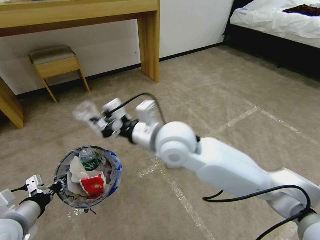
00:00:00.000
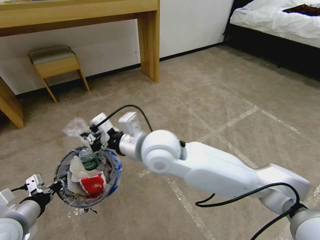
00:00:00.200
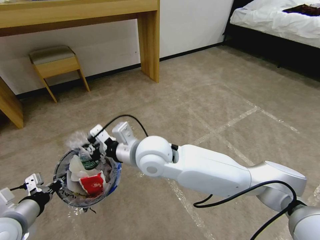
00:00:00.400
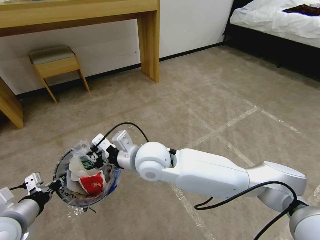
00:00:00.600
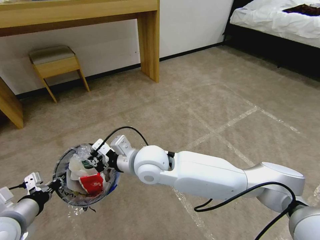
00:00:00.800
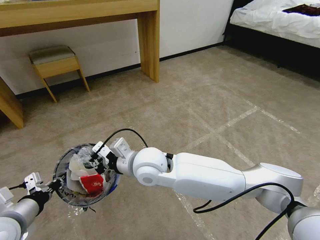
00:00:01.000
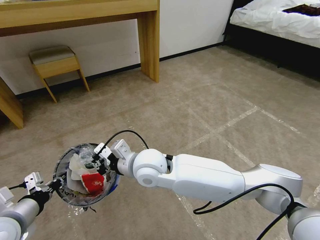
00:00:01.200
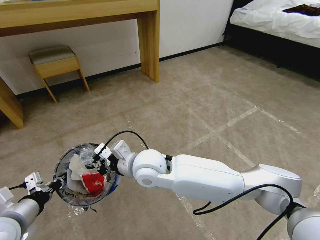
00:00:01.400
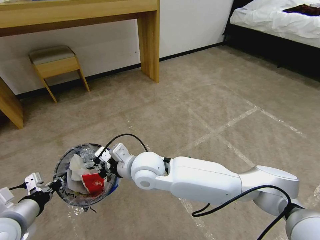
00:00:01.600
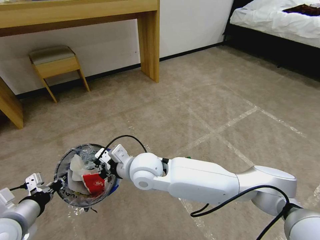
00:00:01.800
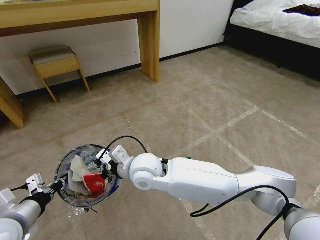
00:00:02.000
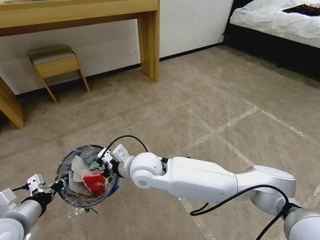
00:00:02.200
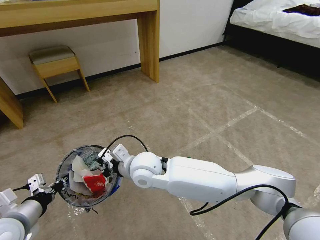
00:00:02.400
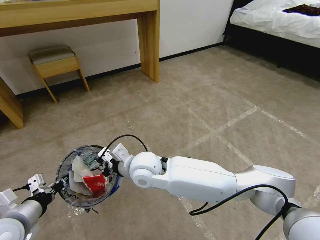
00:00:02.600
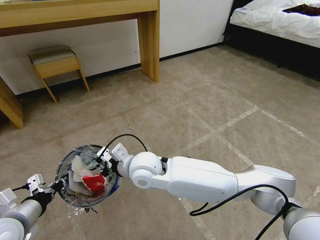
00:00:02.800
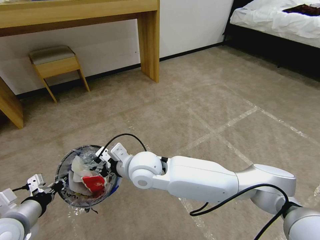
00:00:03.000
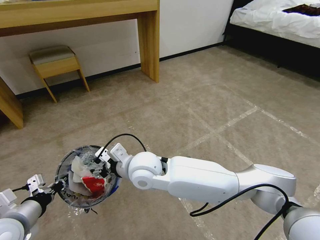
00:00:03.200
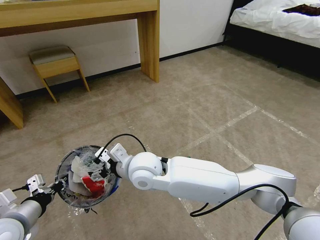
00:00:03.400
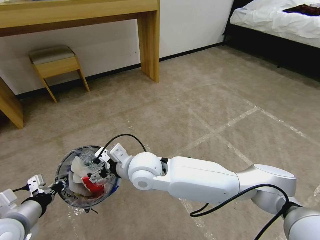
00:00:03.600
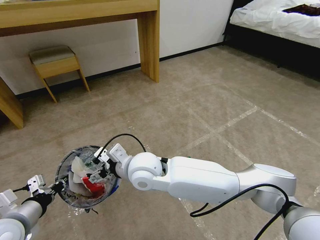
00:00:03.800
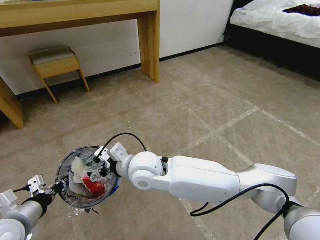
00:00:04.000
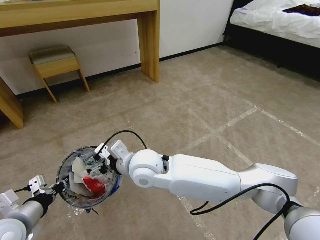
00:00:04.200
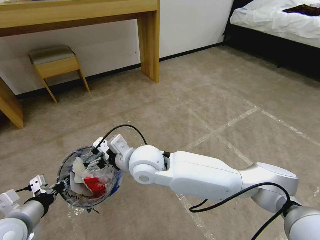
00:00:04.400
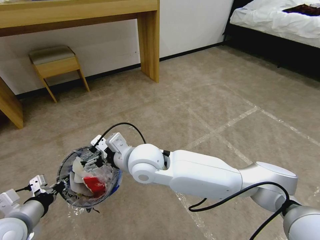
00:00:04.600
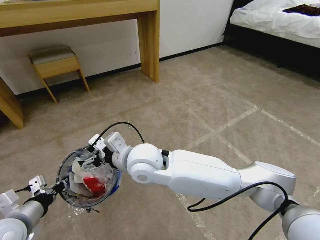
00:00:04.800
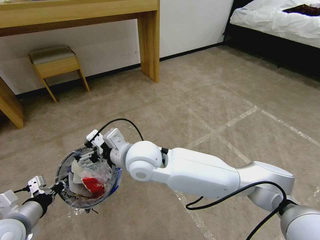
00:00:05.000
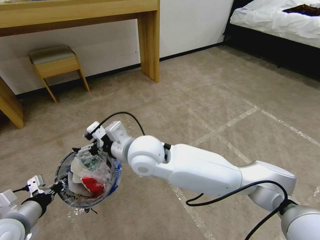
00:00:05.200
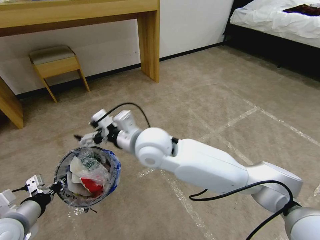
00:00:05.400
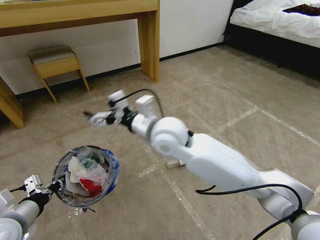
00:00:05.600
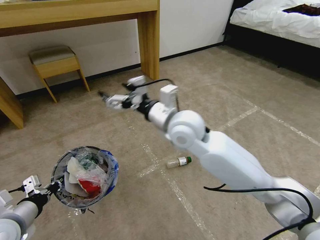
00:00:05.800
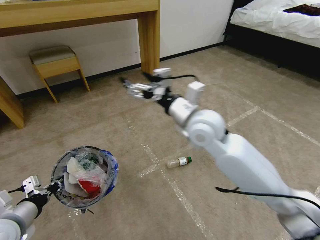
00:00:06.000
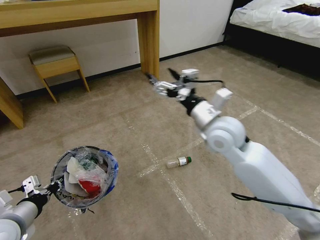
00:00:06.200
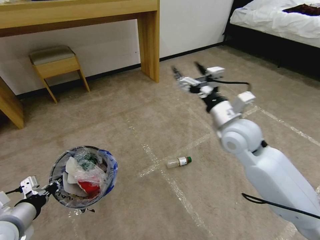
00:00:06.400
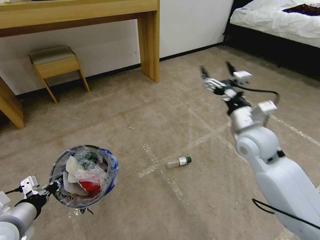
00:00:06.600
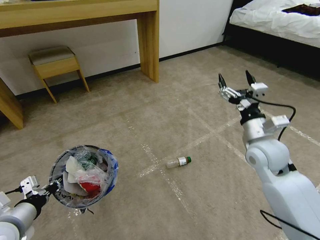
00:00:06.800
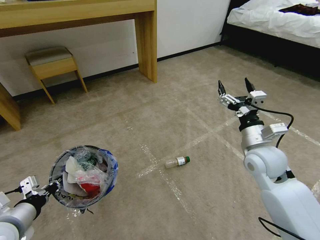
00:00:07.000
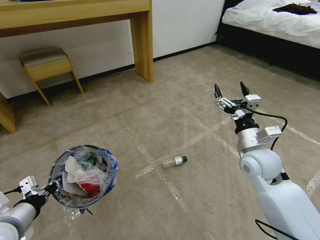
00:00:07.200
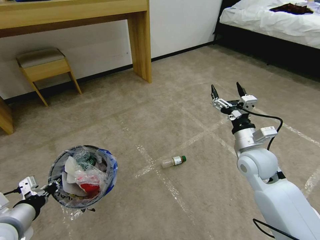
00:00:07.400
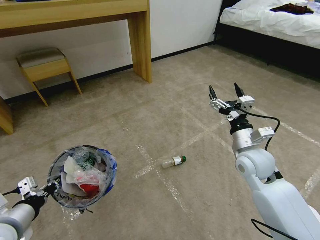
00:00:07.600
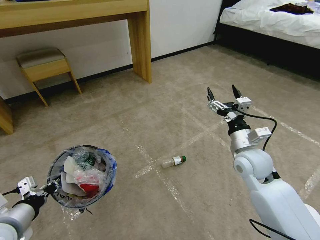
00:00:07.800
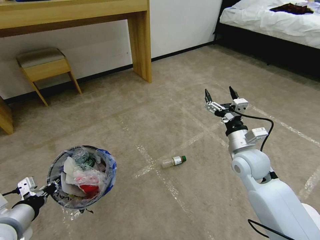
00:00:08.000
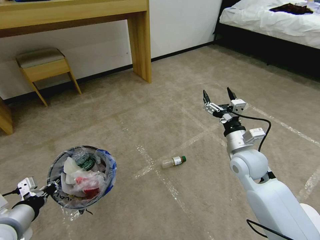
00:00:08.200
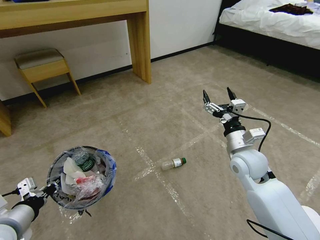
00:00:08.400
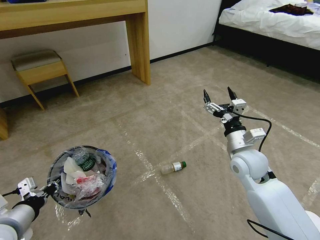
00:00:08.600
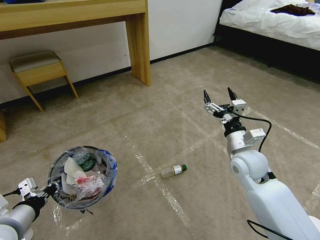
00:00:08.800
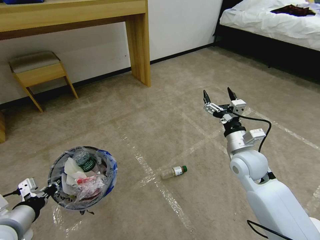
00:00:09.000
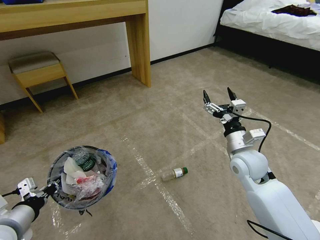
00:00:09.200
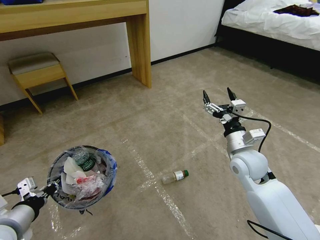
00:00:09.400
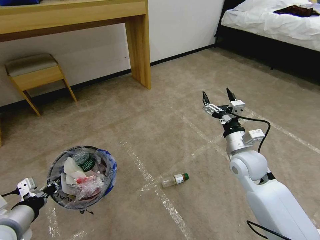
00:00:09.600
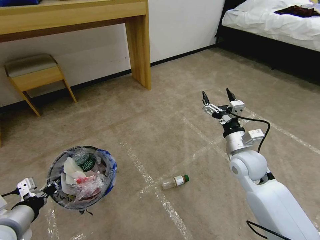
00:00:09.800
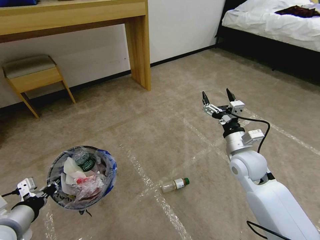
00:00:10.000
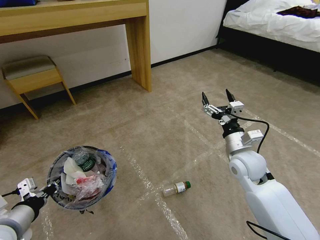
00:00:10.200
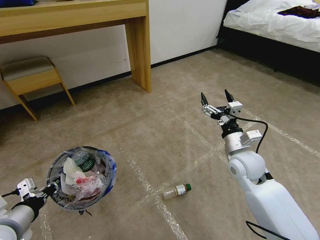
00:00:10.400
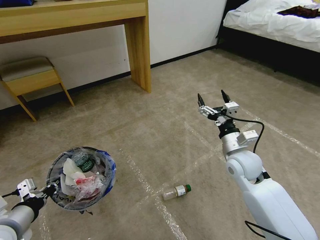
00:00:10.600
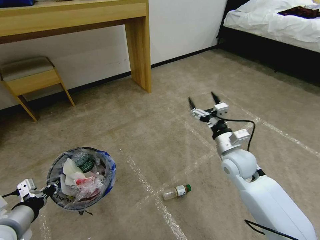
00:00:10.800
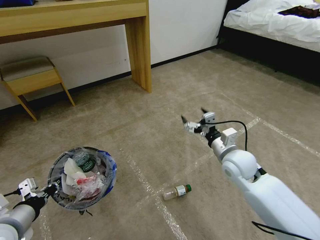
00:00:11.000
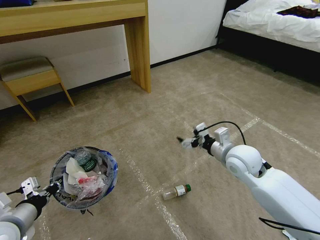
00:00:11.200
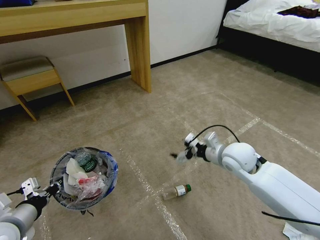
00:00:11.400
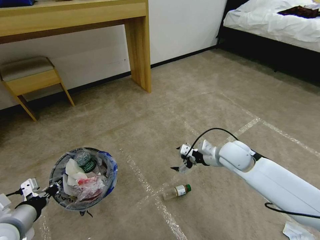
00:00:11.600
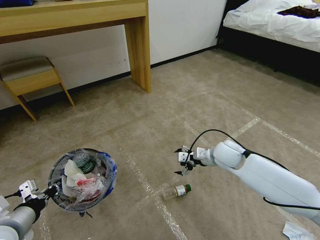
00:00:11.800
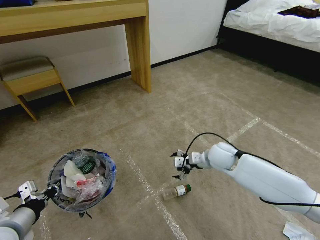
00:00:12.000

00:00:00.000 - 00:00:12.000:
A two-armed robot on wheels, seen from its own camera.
Task of the whole recording: Pick up the trash bin and place the garbage on the floor into it.
00:00:00.000 - 00:00:01.600: The right gripper shifts about 10 cm downward and to the left.
00:00:01.600 - 00:00:03.000: The right gripper opens.
00:00:03.000 - 00:00:04.400: The right gripper opens its fingers.
00:00:04.400 - 00:00:06.000: The right gripper heads to the right, upward and forward, covering roughly 20 cm.
00:00:06.000 - 00:00:07.600: The right gripper moves to the right and downward, about 20 cm.
00:00:07.600 - 00:00:09.000: The grippers move only a little.
00:00:09.000 - 00:00:10.400: Both grippers stay put.
00:00:10.400 - 00:00:12.000: The right gripper shifts about 10 cm forward and downward.

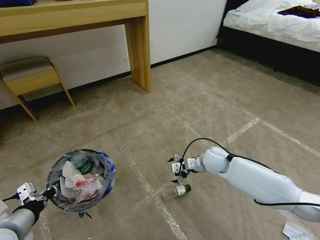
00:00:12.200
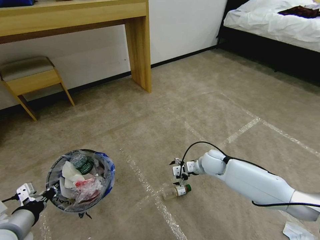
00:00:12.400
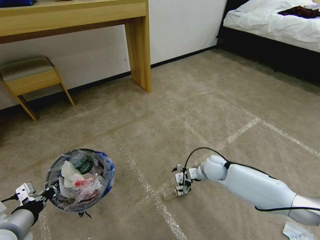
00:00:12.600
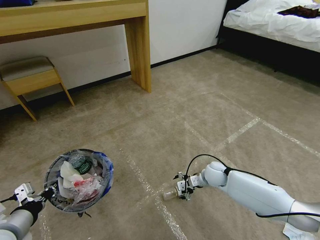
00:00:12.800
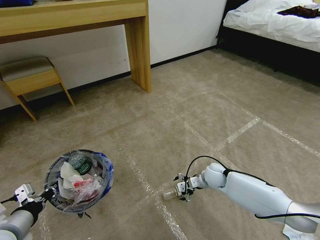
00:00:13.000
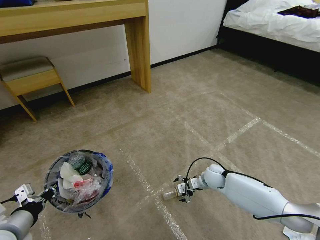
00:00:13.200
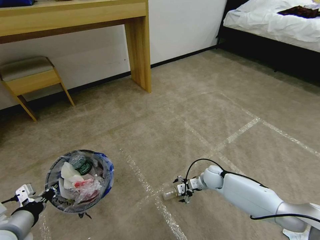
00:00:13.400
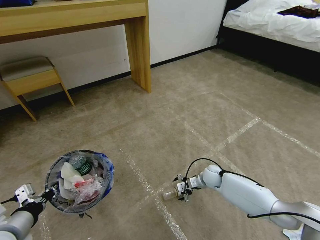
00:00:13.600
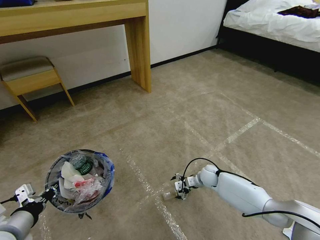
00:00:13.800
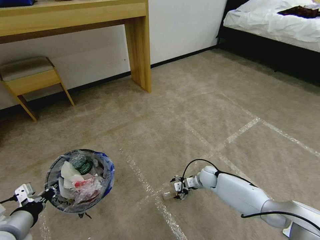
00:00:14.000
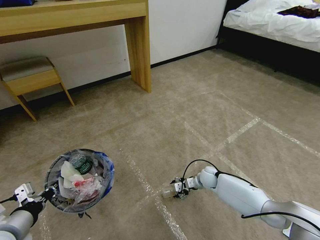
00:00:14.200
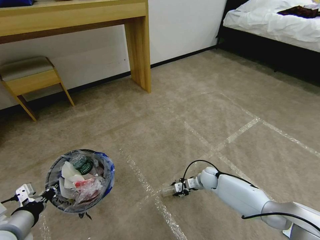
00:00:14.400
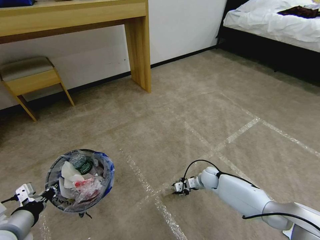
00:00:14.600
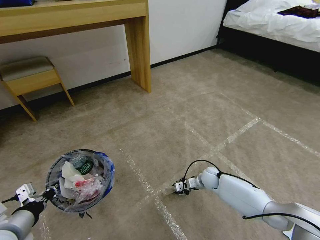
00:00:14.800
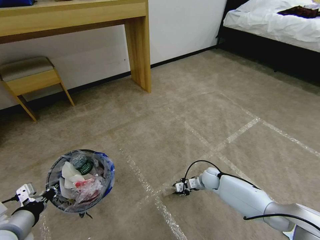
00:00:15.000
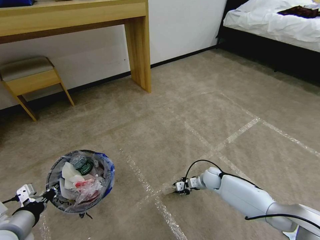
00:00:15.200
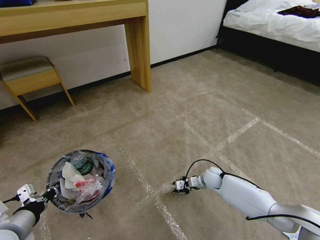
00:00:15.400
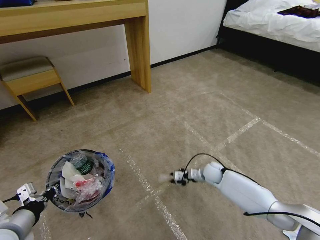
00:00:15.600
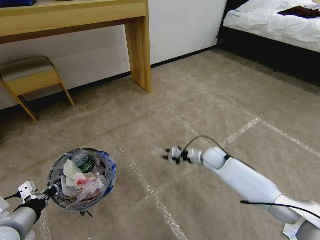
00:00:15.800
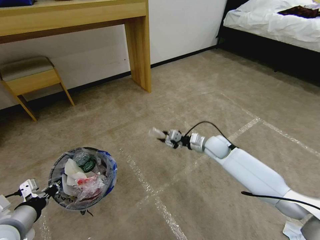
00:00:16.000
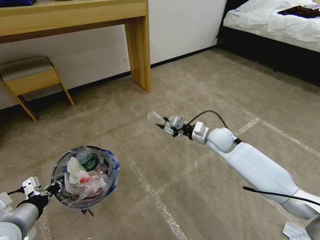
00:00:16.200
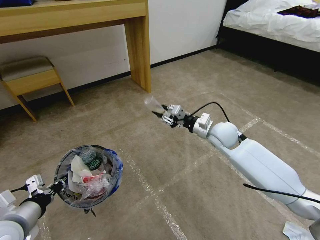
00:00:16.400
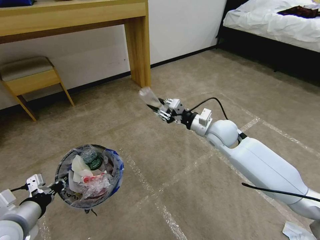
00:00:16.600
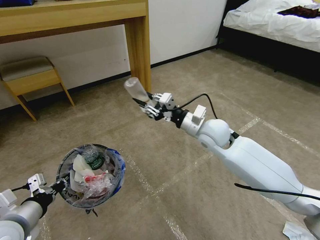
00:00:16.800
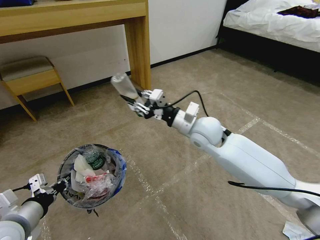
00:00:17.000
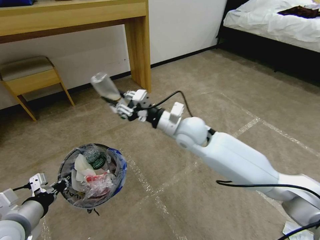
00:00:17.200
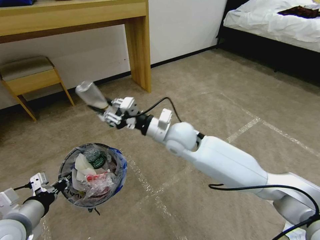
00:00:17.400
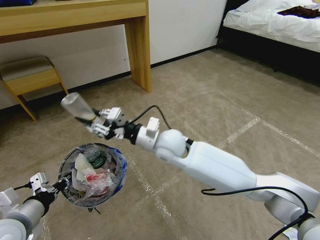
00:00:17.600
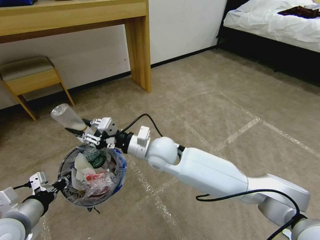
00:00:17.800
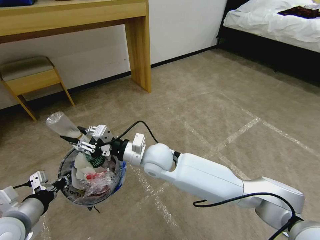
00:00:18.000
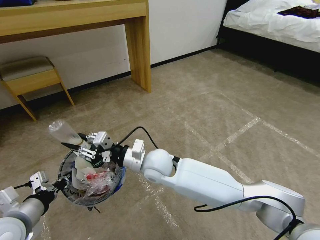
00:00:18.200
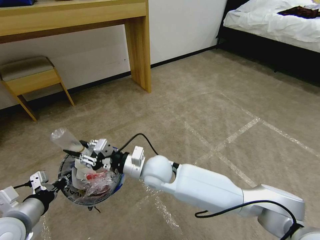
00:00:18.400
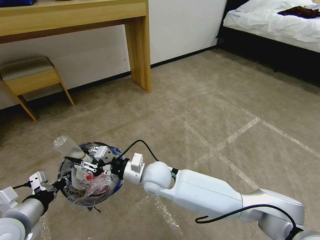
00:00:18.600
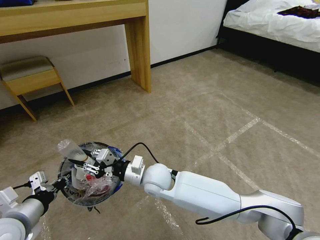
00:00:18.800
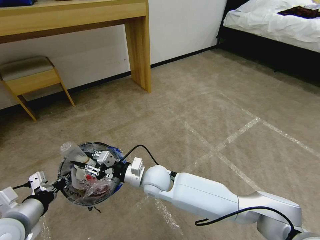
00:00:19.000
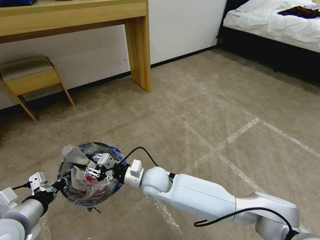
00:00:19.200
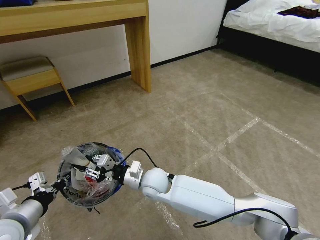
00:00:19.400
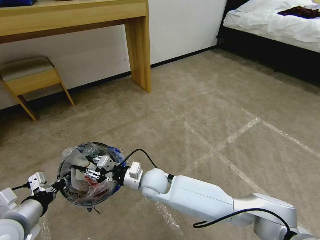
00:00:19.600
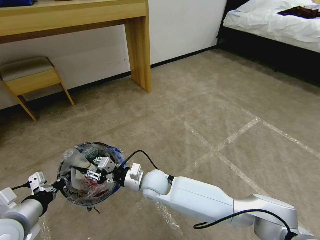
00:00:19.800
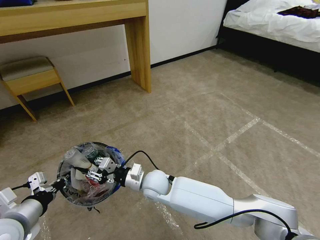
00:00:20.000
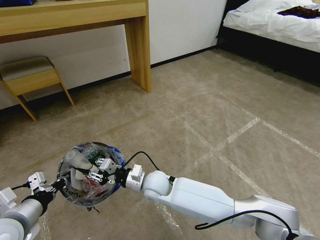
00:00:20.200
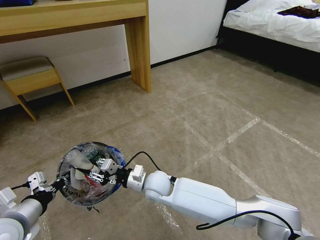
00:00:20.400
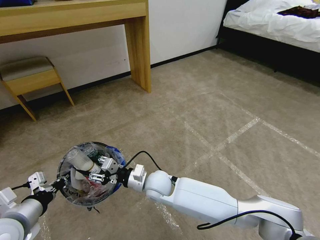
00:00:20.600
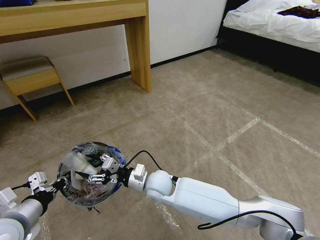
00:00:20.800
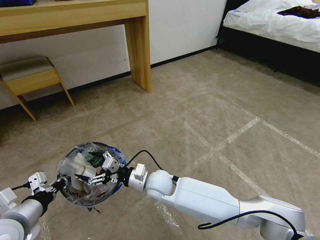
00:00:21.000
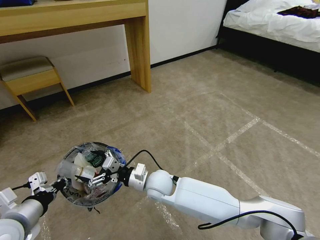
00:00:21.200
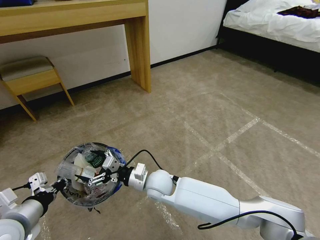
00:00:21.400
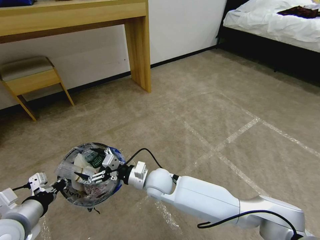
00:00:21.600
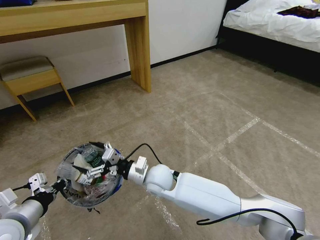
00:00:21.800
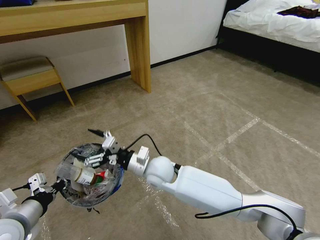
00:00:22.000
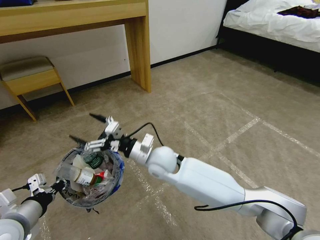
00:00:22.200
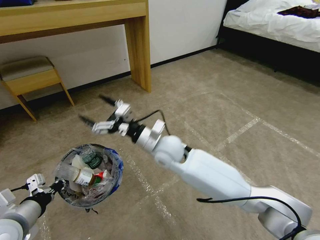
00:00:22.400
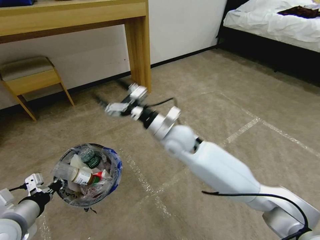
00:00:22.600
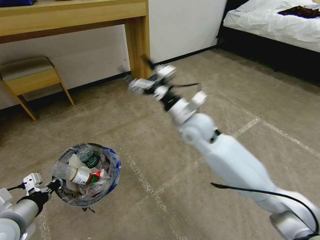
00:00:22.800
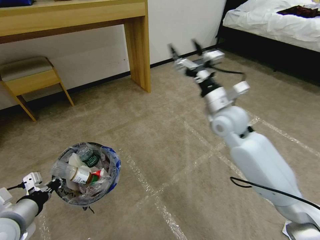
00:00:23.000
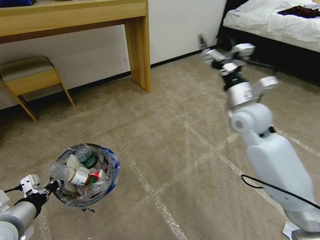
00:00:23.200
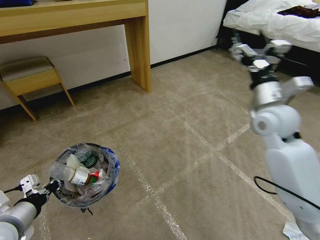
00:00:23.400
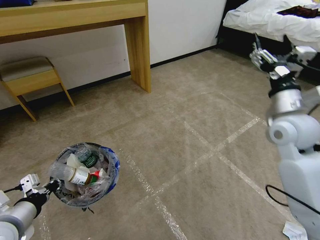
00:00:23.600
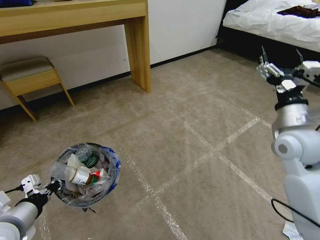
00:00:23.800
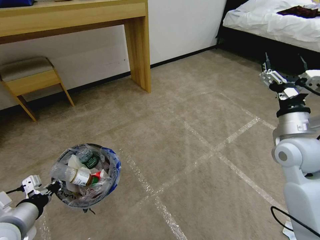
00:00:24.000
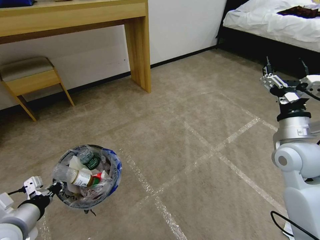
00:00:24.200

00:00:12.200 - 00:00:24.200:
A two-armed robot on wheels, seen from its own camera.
Task of the whole recording: Pick up the trash bin and place the garbage on the floor into it.
00:00:12.200 - 00:00:13.800: The right gripper shifts some 15 cm downward.
00:00:13.800 - 00:00:15.200: The right gripper closes.
00:00:15.200 - 00:00:16.600: The right gripper heads upward, covering about 30 cm.
00:00:16.600 - 00:00:18.200: The right gripper goes approximately 25 cm to the left and backward.
00:00:18.200 - 00:00:19.800: The right gripper travels downward by about 10 cm.
00:00:19.800 - 00:00:21.200: The right gripper opens.
00:00:21.200 - 00:00:22.600: The right gripper heads upward, forward and to the right, covering roughly 20 cm.
00:00:22.600 - 00:00:24.200: The right gripper moves to the right, roughly 30 cm.
